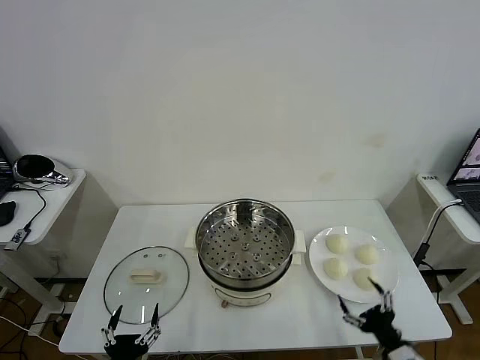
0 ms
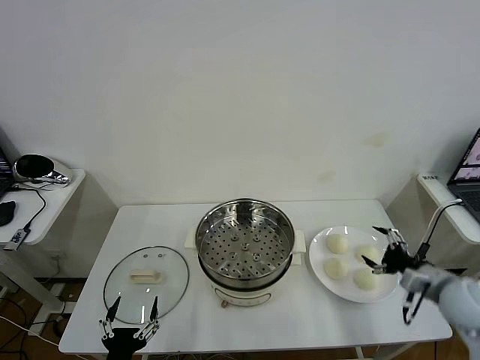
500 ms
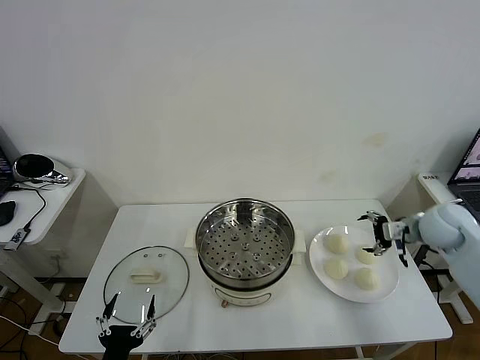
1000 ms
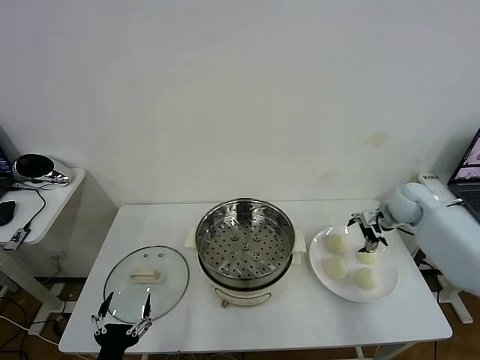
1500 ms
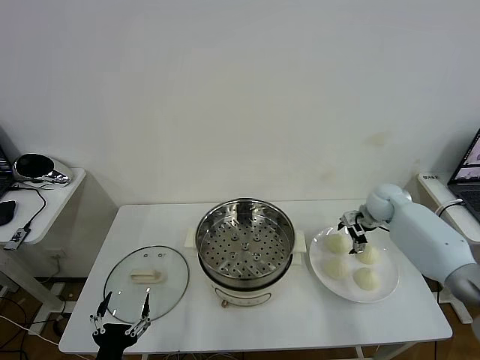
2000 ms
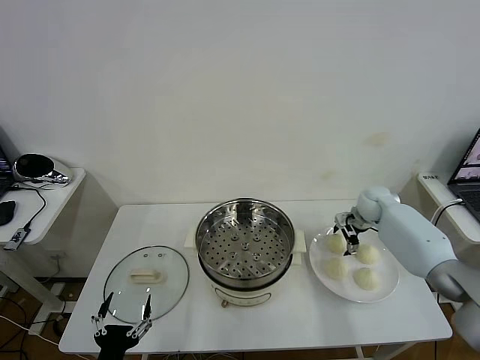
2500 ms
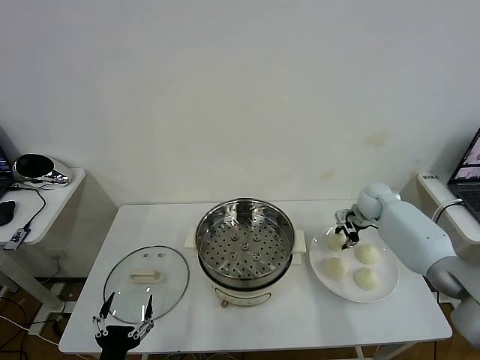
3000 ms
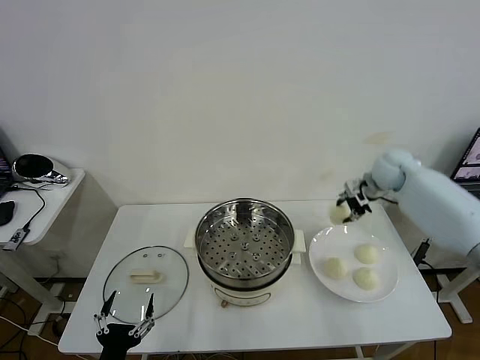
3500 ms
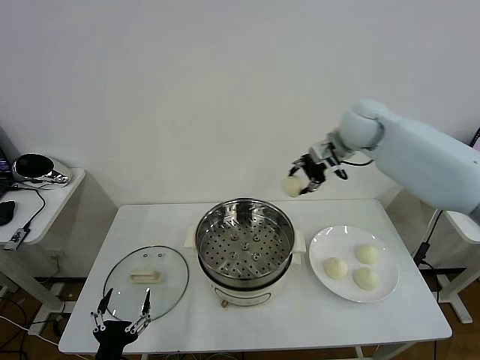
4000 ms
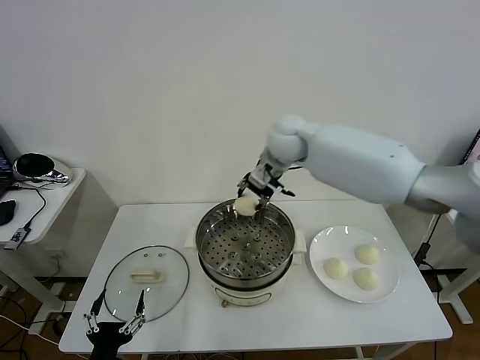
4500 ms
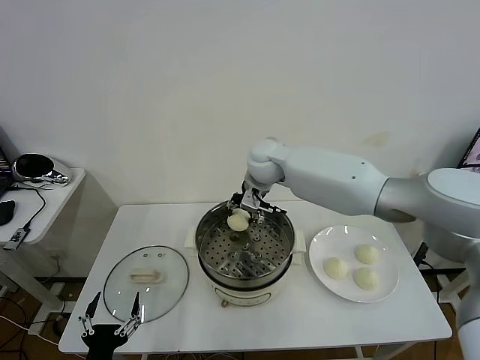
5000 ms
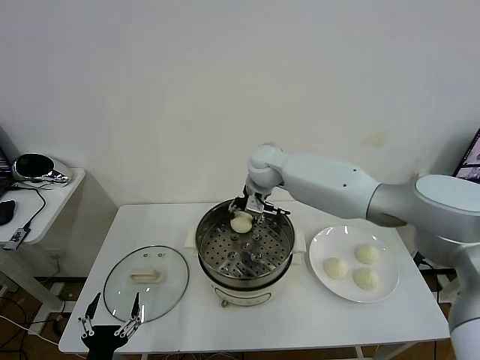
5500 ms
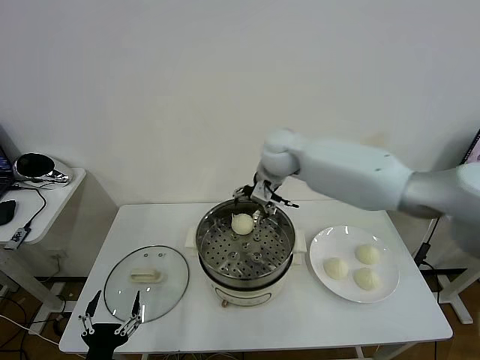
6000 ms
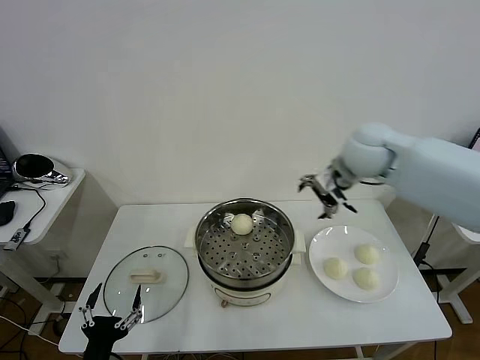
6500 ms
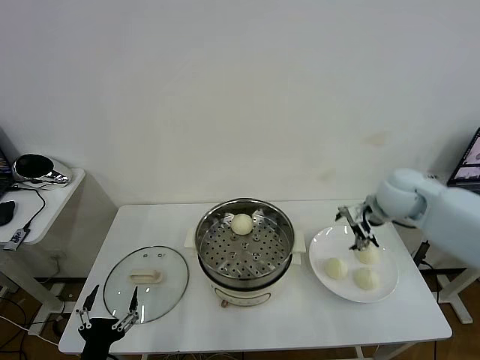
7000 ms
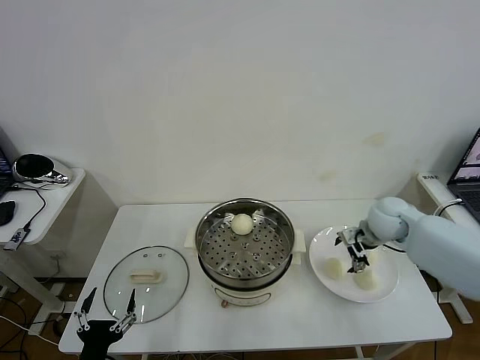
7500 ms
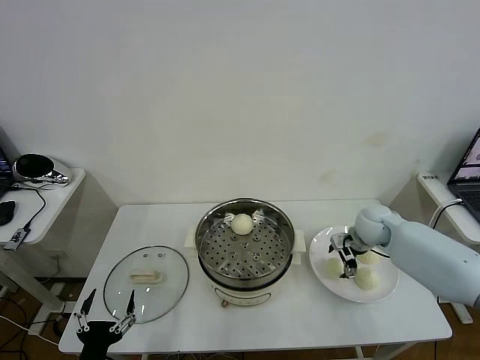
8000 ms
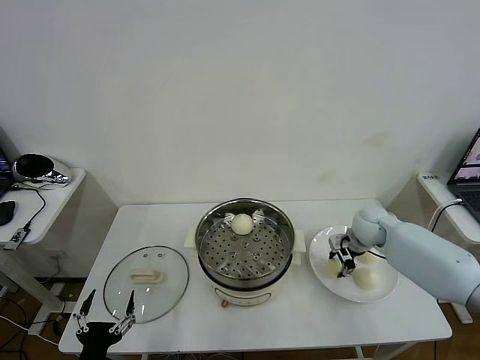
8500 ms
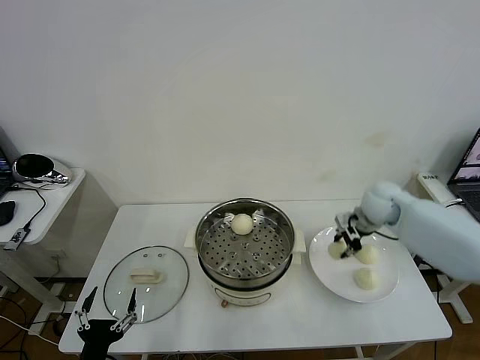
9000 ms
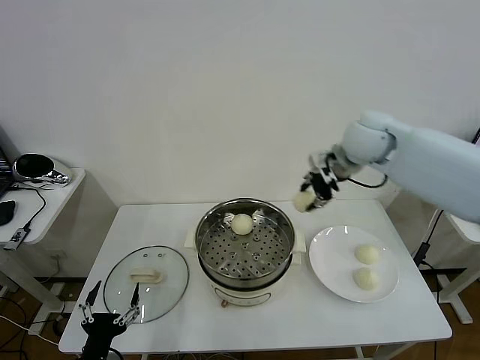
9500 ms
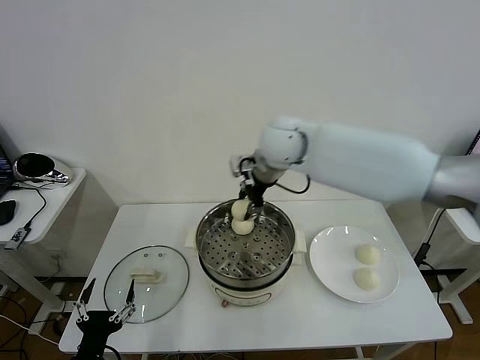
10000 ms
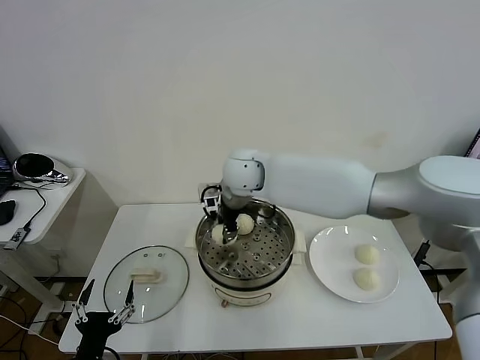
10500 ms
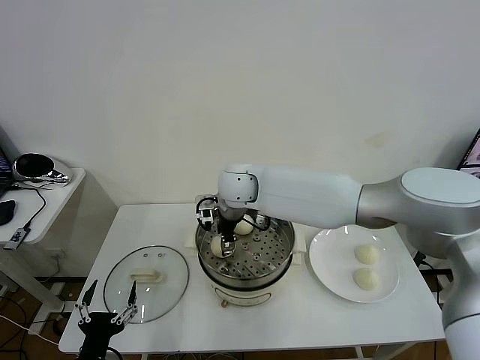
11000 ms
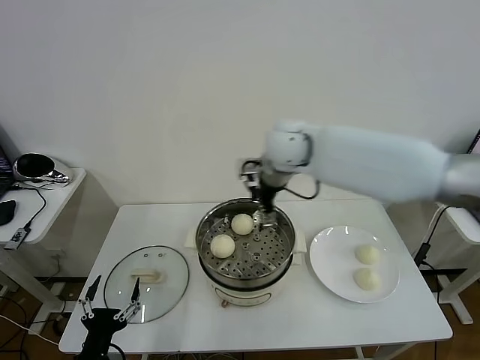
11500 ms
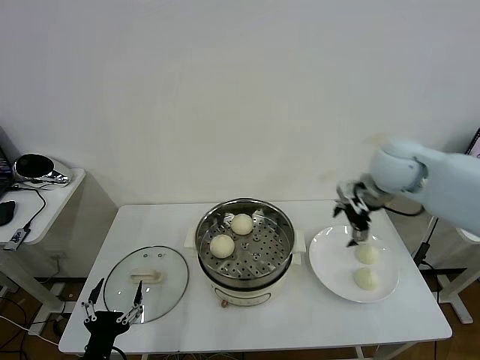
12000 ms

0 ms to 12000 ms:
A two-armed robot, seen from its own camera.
Task of the whole recording: take steamed baozi put them in steamer then cover it.
Step, 0 ms to 2500 ms: Grasp the baozi in the plate with right gripper.
Step, 3000 ms to 5500 ms: Place the baozi on the steamer with right gripper.
Step, 6000 ms to 8500 ms: Grasp the baozi in the plate with right gripper.
Step, 9000 ms to 11000 ms: Place the baozi on the steamer with right gripper.
2000 ms to 4000 ms: The right gripper goes some 30 cm upward and to the left, and closes up.
4000 ms to 6000 ms: The right gripper moves to the left, roughly 10 cm, and opens.
6000 ms to 8000 ms: The right gripper moves to the right and downward, about 30 cm.
8000 ms to 10000 ms: The right gripper moves to the left and upward, some 35 cm, and closes up.
10000 ms to 12000 ms: The right gripper shifts roughly 25 cm to the right, and opens its fingers.

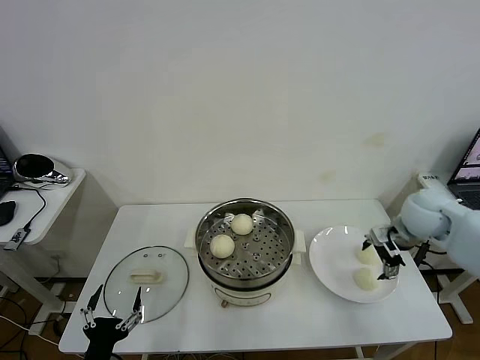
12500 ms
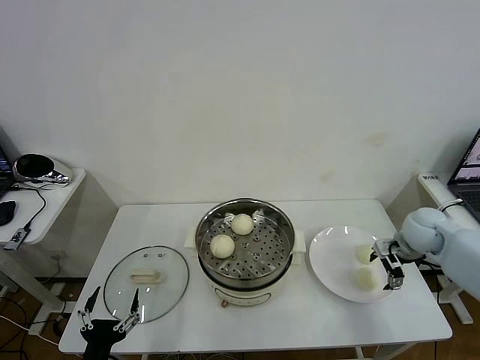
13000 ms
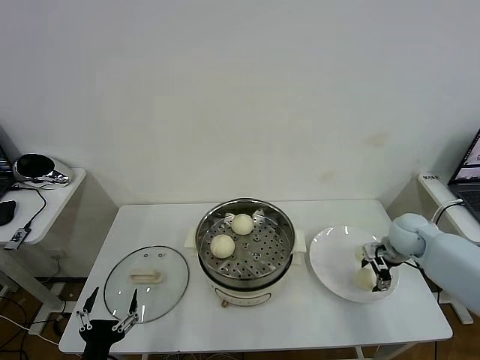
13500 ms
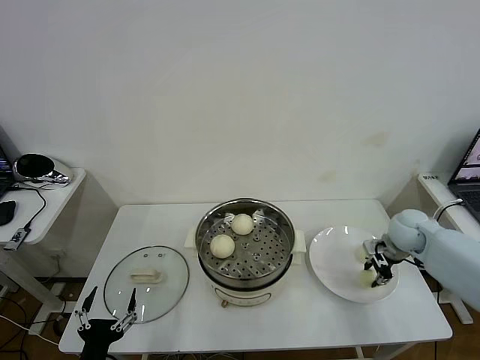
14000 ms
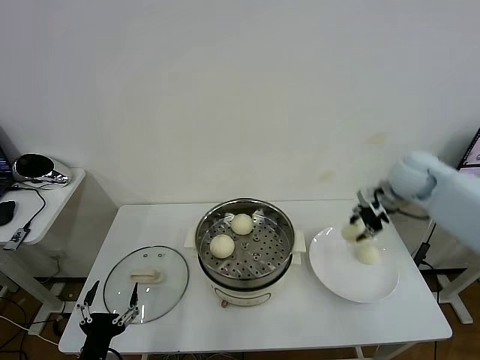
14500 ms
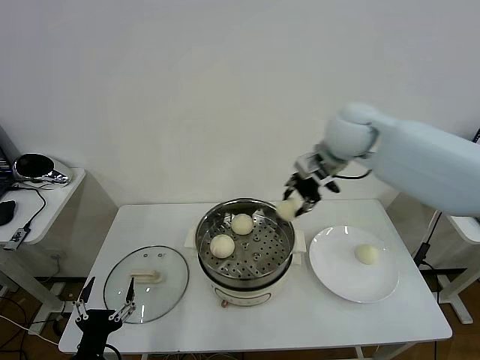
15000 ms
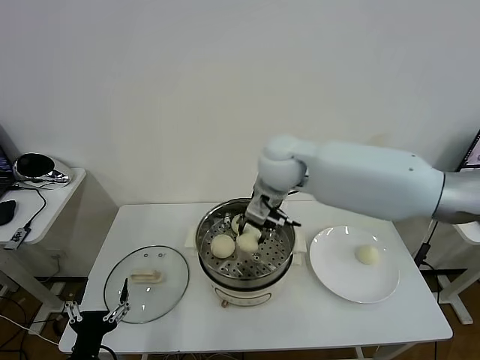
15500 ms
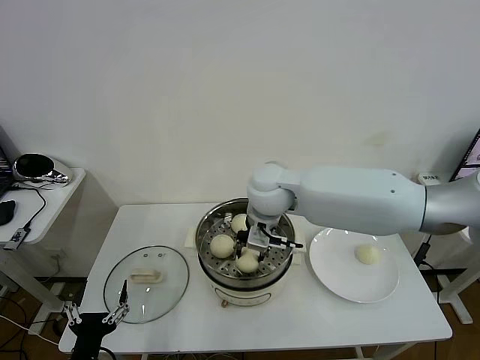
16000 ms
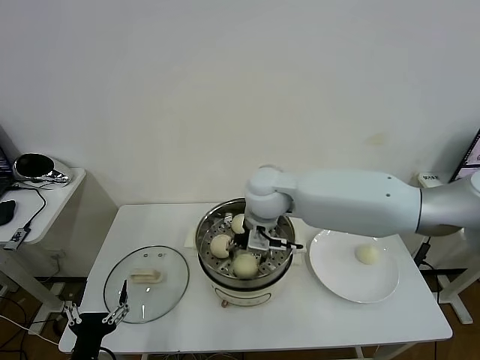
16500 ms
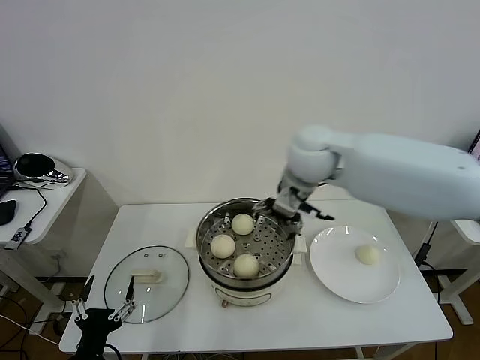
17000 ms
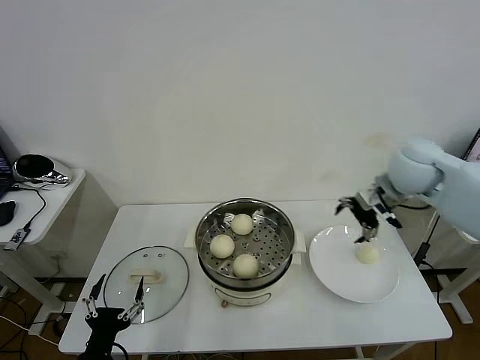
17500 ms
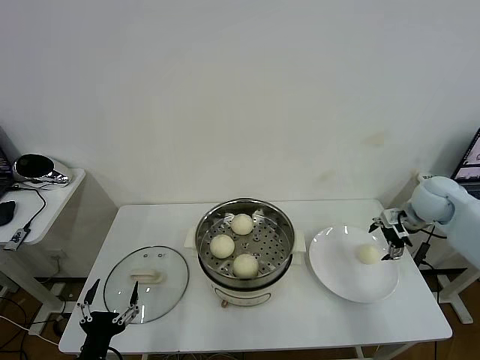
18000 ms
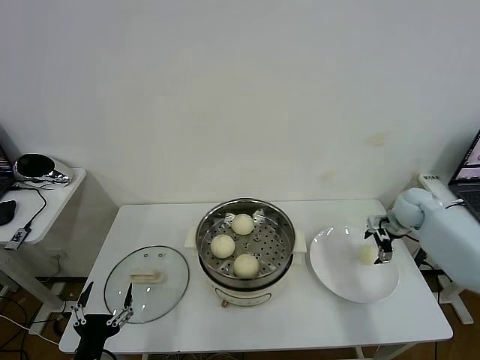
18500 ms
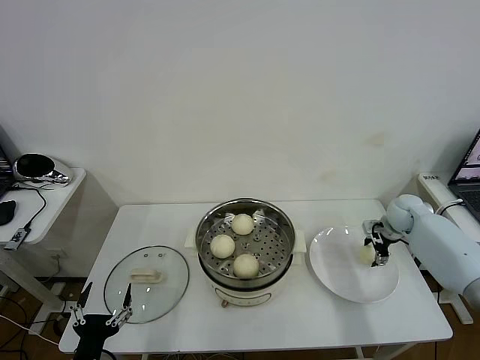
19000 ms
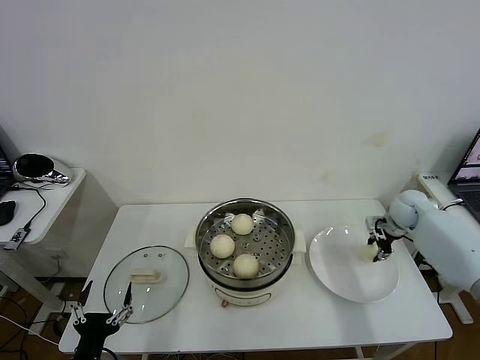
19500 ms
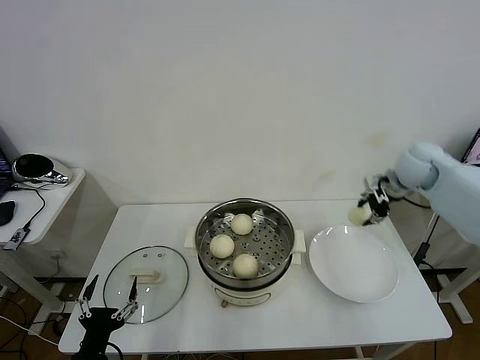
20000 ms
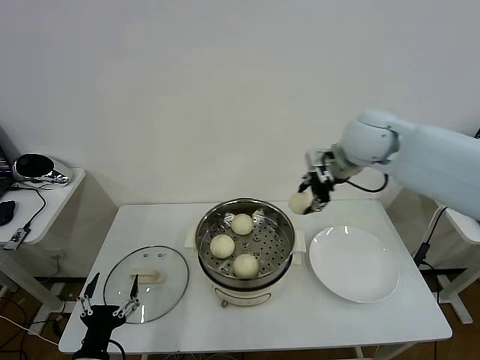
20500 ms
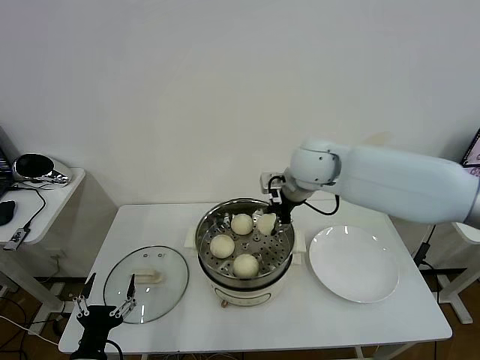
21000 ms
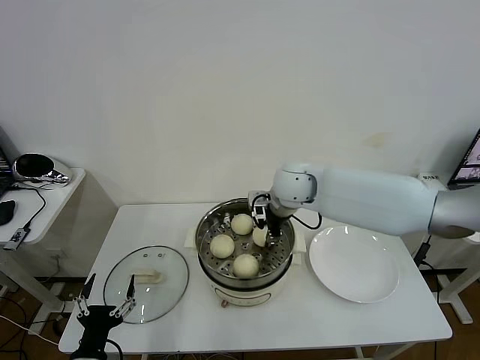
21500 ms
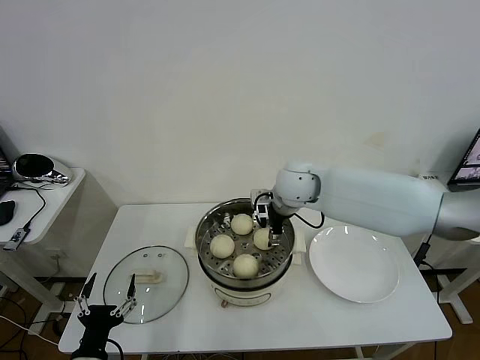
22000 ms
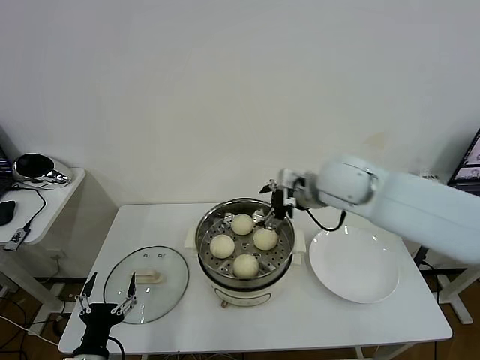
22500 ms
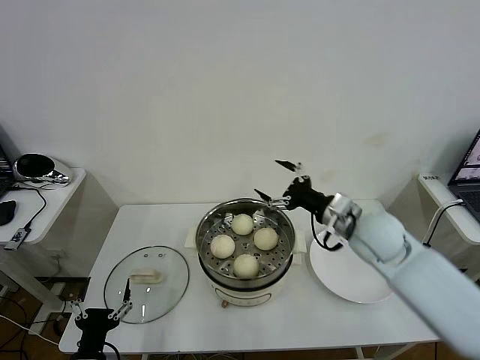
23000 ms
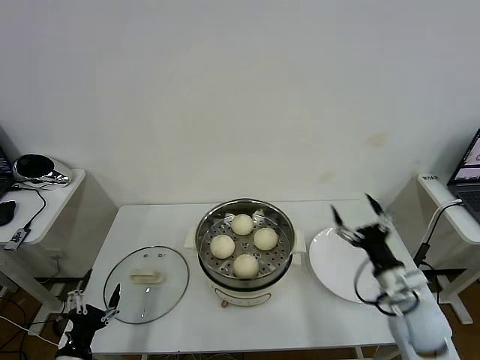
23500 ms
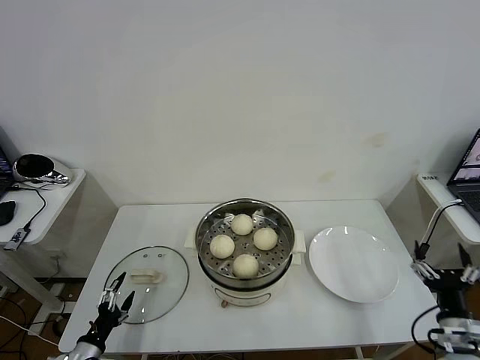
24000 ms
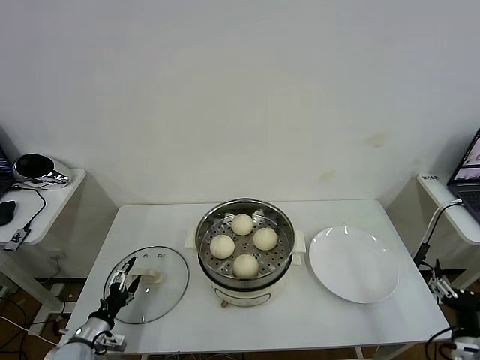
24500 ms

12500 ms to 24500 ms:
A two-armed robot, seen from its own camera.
Task of the whole recording: take steamed baozi put them in steamer then cover it.
Step, 12500 ms to 14000 ms: Grasp the baozi in the plate with right gripper.
Step, 14500 ms to 16500 ms: Place the baozi on the steamer with right gripper.
Step, 17000 ms to 19000 ms: Grasp the baozi in the plate with right gripper.
Step, 19500 ms to 22000 ms: Place the baozi on the steamer with right gripper.
12500 ms to 14500 ms: The right gripper is displaced upward and forward by approximately 10 cm, and closes.
14500 ms to 16500 ms: The right gripper goes roughly 30 cm to the left, and opens.
16500 ms to 18500 ms: The right gripper heads to the right, covering about 40 cm.
18500 ms to 20500 ms: The right gripper heads upward and to the left, covering about 30 cm, and closes.
20500 ms to 22500 ms: The right gripper is displaced downward and backward by some 10 cm, and opens up.
22500 ms to 24500 ms: The left gripper heads forward, to the left and downward, covering roughly 15 cm. The right gripper shifts roughly 50 cm backward, downward and to the right.

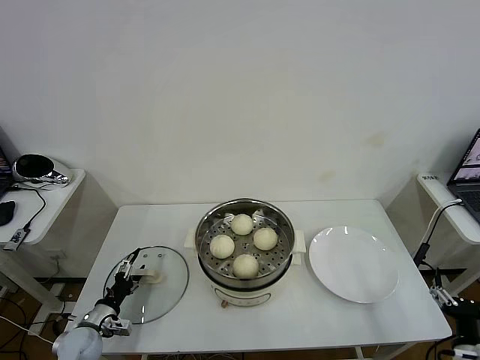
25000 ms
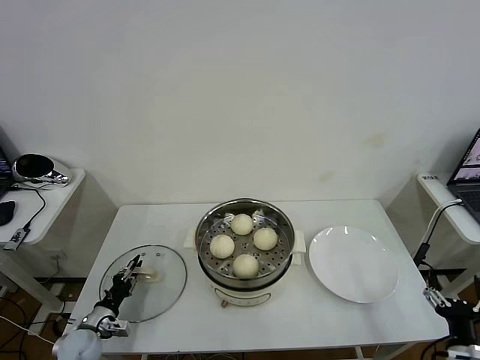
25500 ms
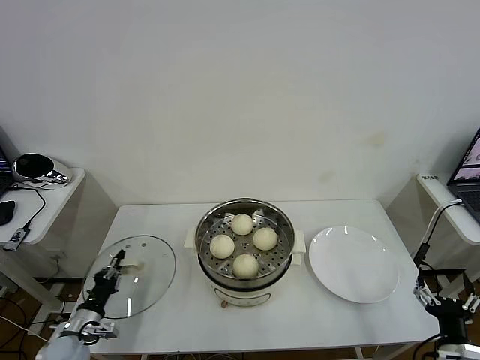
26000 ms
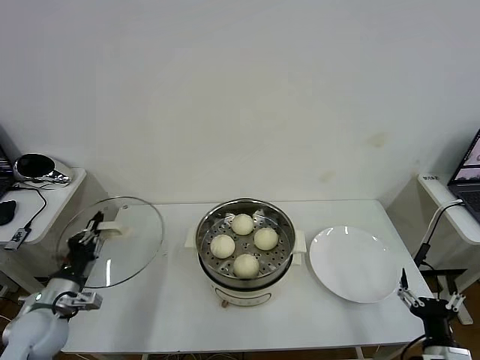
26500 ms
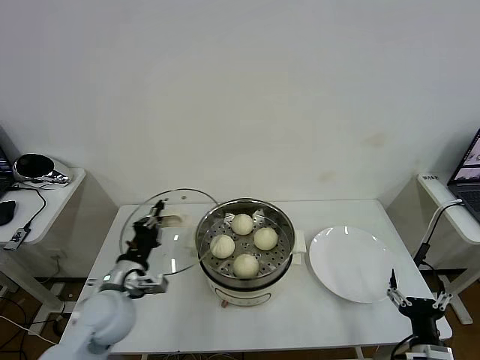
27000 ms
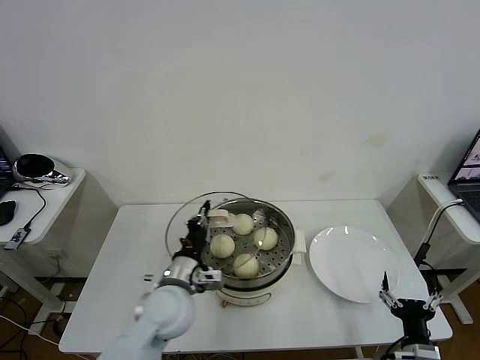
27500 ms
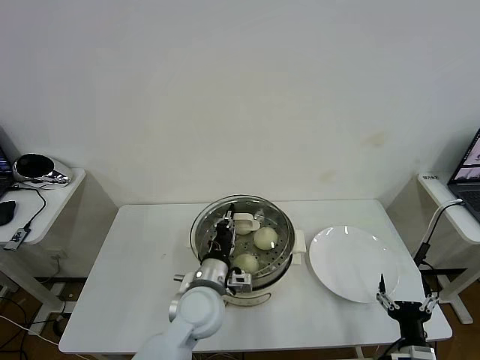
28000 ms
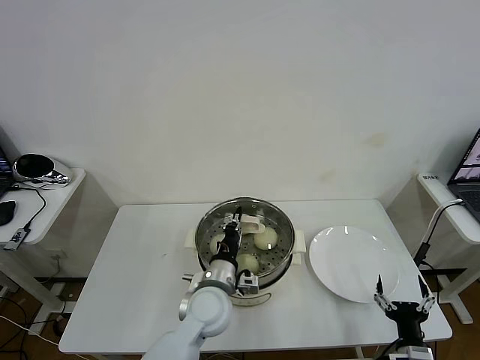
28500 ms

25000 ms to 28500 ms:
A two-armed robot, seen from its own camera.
Task of the whole recording: take steamed baozi put them in steamer then cover it.
25000 ms to 27000 ms: The right gripper goes about 5 cm to the left. Meanwhile the left gripper moves upward and to the right, some 20 cm, and closes.
27000 ms to 28500 ms: The left gripper travels to the right by roughly 20 cm.
